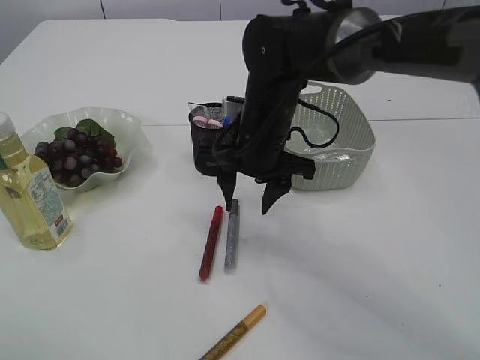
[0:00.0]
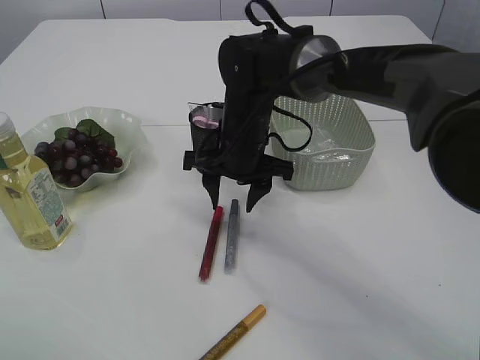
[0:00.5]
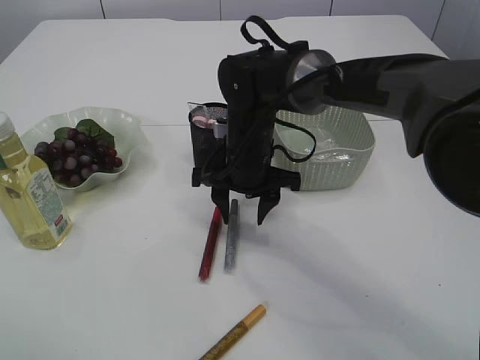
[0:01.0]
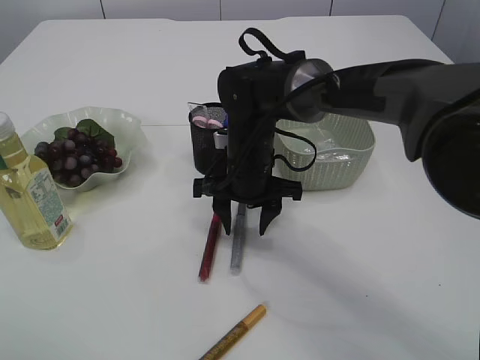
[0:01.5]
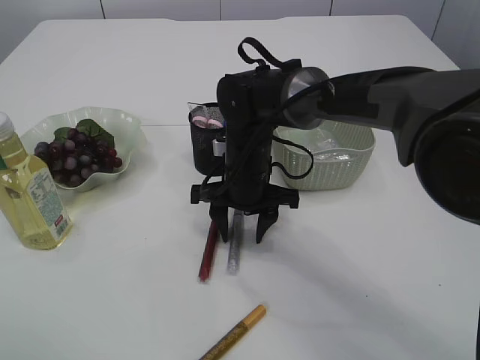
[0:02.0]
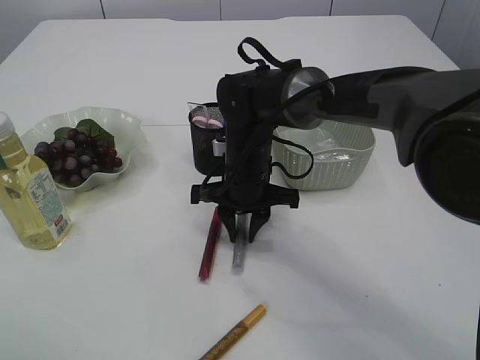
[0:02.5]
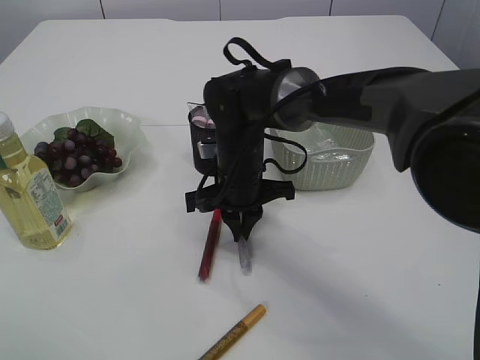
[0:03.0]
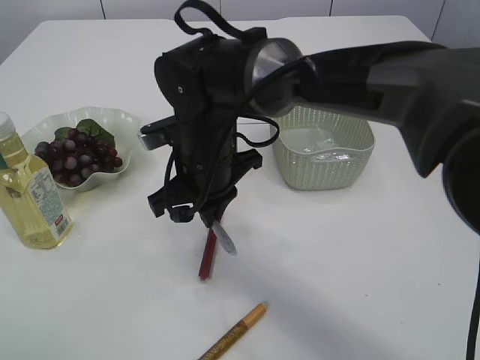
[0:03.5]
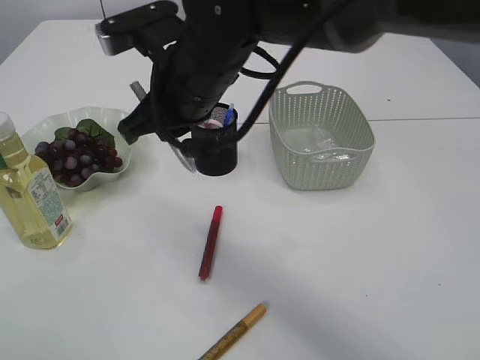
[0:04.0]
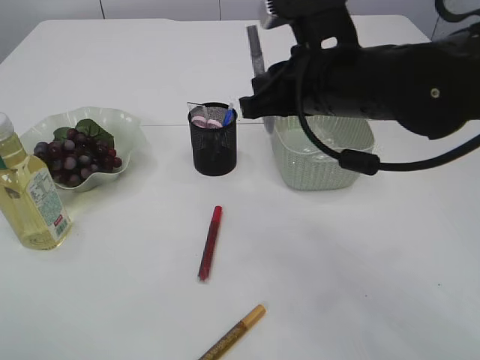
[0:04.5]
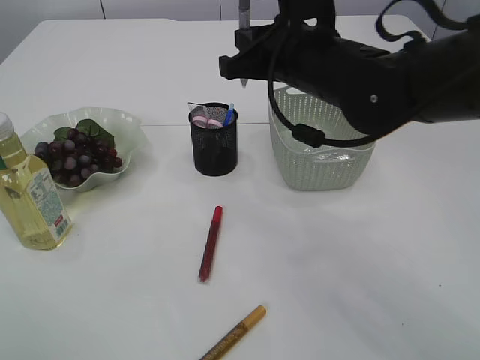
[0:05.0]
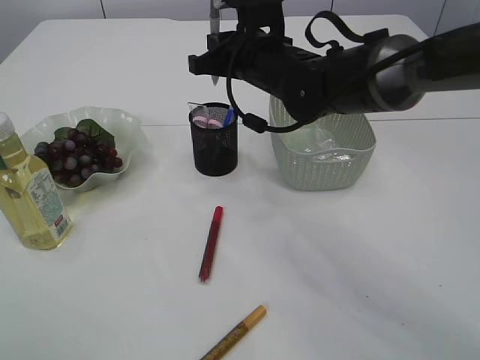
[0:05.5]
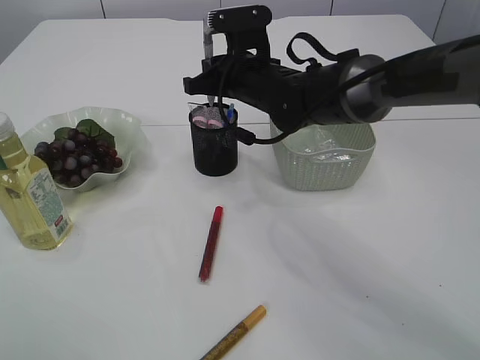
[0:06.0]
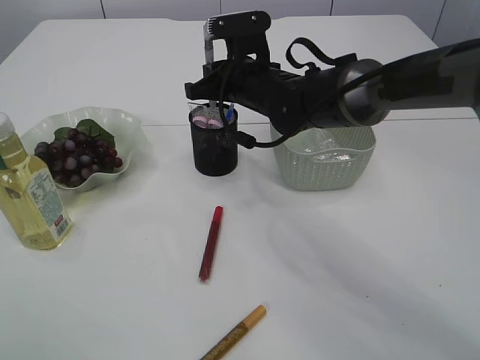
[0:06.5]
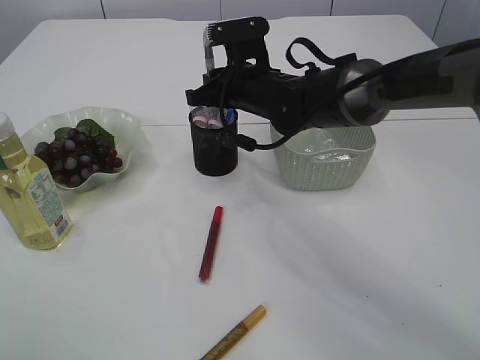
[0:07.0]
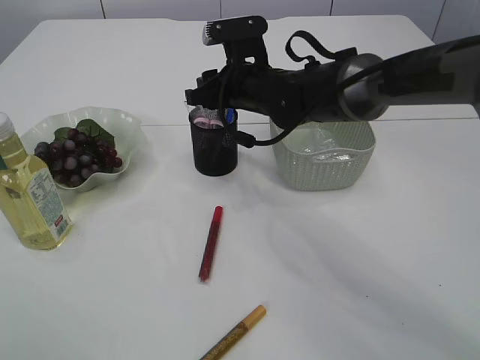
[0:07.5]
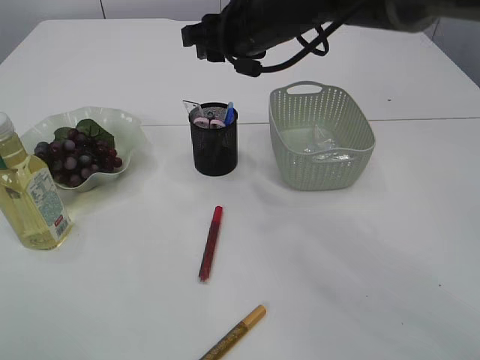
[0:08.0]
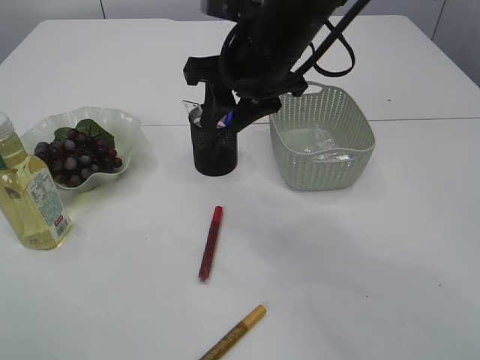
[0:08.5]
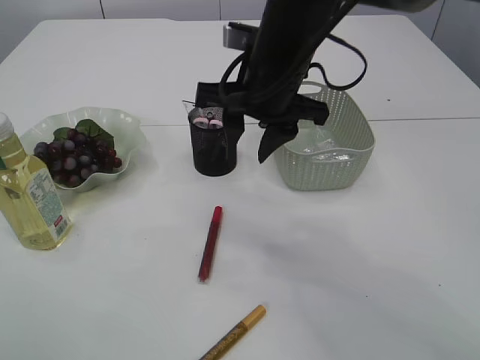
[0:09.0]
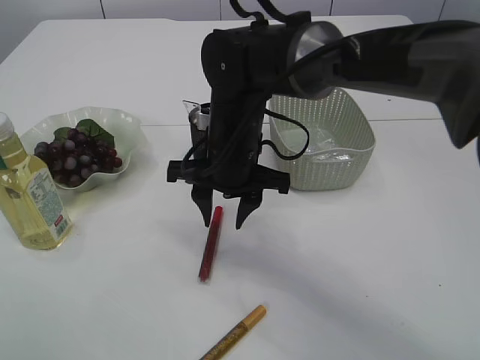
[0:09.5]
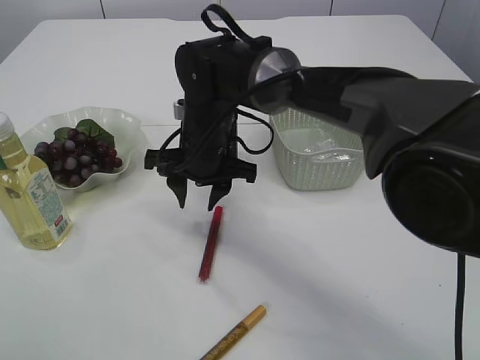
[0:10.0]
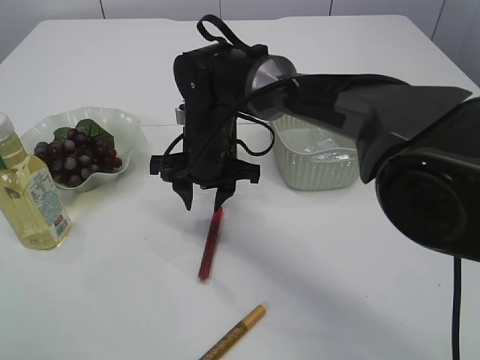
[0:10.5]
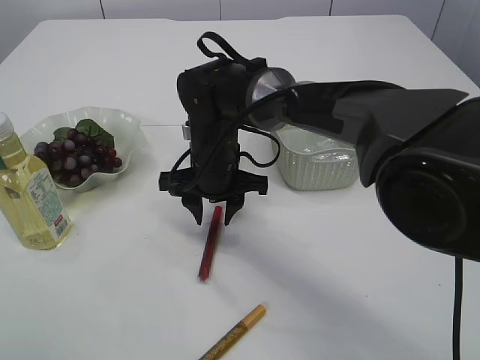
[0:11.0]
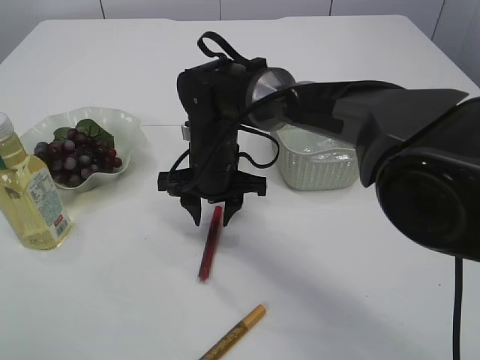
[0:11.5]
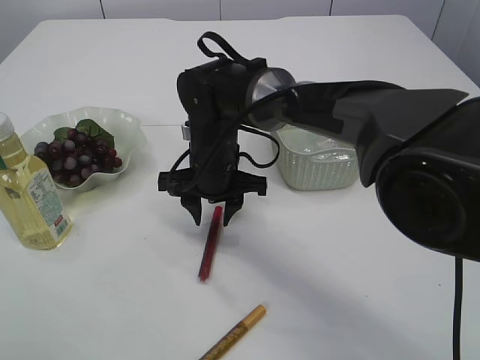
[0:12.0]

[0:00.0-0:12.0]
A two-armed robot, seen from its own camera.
Step, 0:00.0 to 0:03.5: pick up the silver glue.
Step, 0:04.0 to 0:08.0: place the silver glue into the pen holder.
0:00.0 to 0:02.0: The right gripper goes roughly 5 cm downward.
0:02.0 to 0:04.0: The right gripper shifts roughly 15 cm upward, and closes up.
0:04.0 to 0:06.0: The right gripper travels forward, downward and to the right by about 15 cm.
0:06.0 to 0:08.0: The right gripper heads upward, covering some 10 cm, and opens its fingers.
0:08.0 to 0:10.0: The right gripper heads downward and to the left, covering about 15 cm.
0:10.0 to 0:12.0: There are only small adjustments of the grippers.

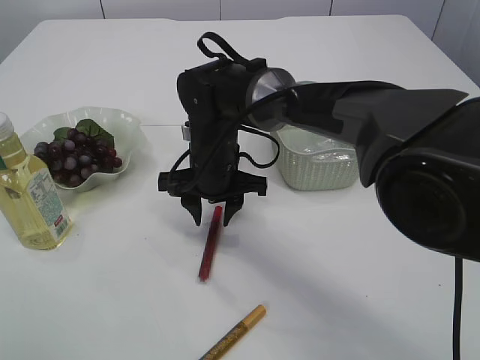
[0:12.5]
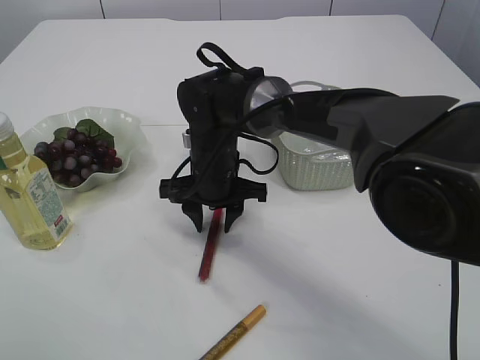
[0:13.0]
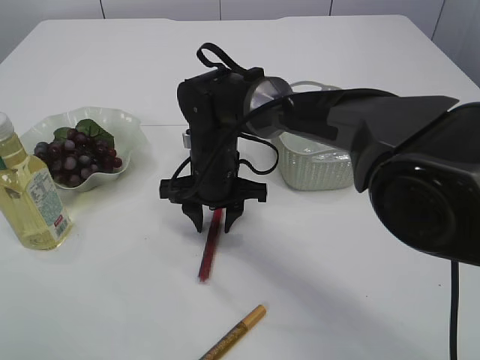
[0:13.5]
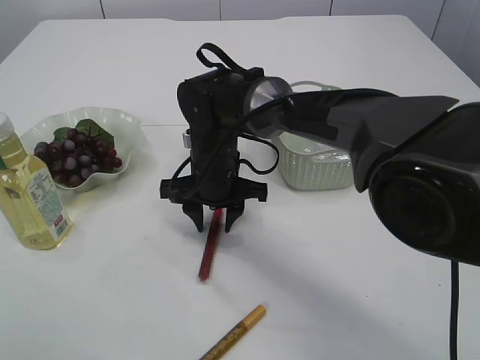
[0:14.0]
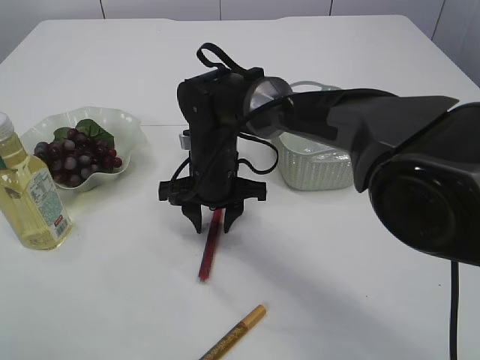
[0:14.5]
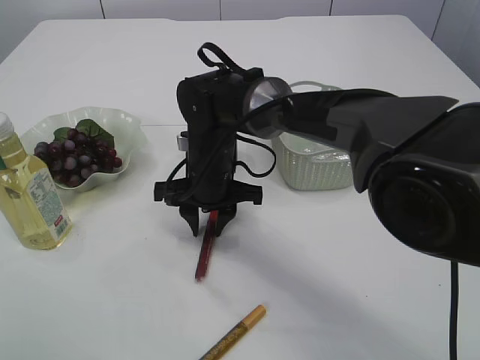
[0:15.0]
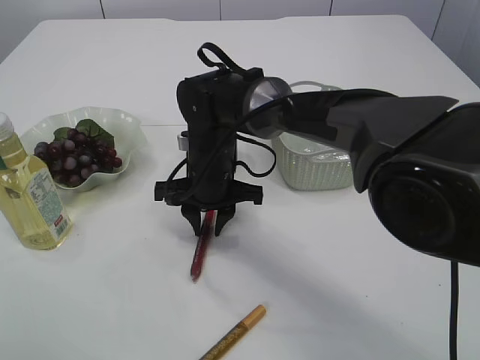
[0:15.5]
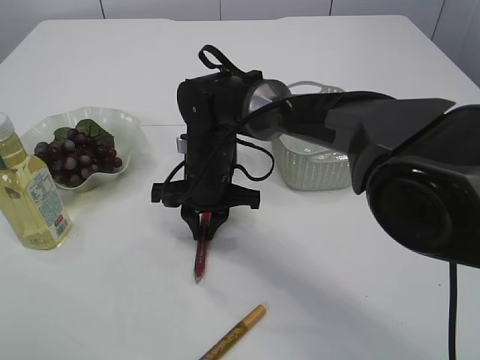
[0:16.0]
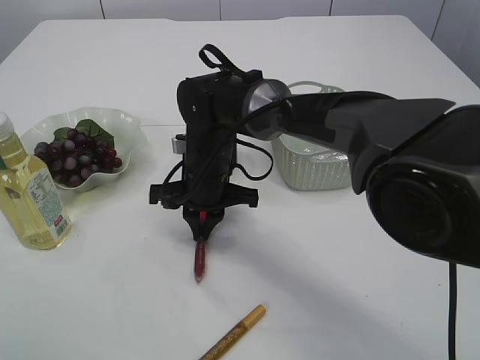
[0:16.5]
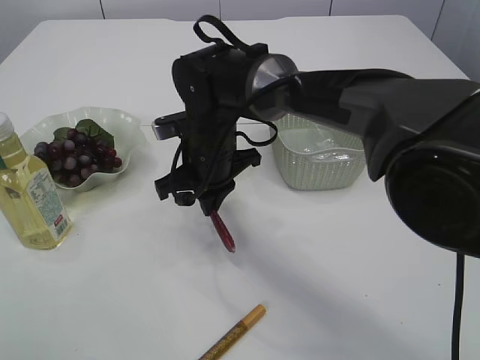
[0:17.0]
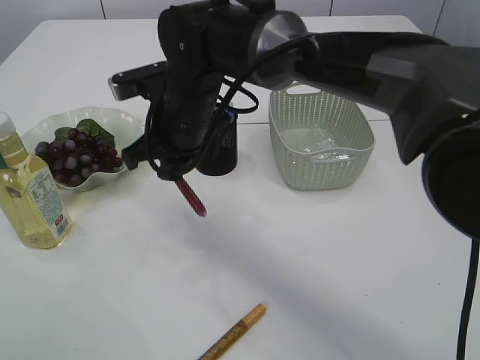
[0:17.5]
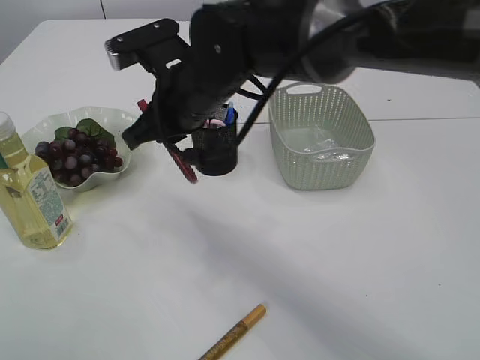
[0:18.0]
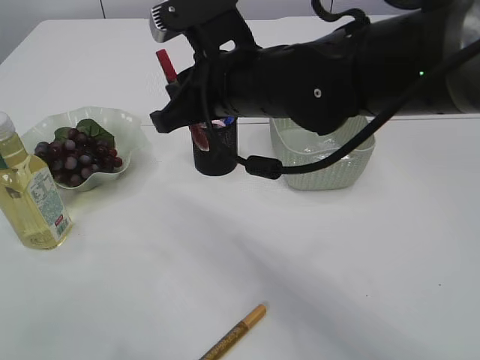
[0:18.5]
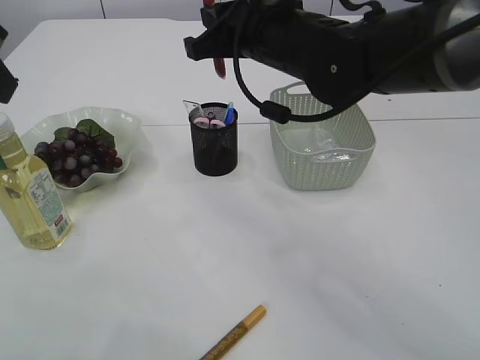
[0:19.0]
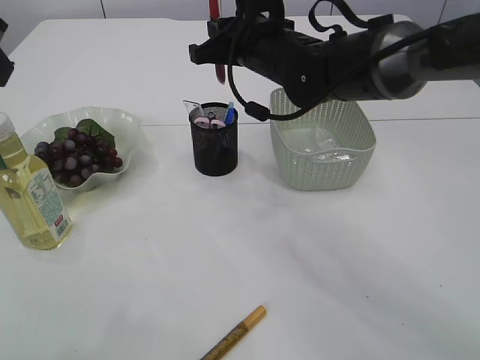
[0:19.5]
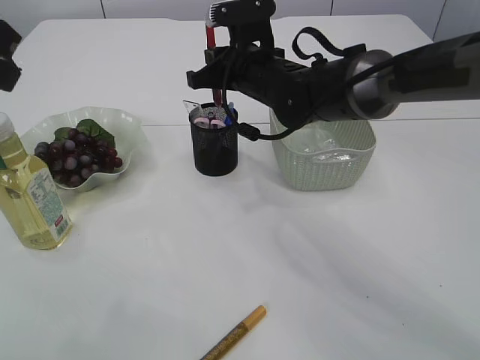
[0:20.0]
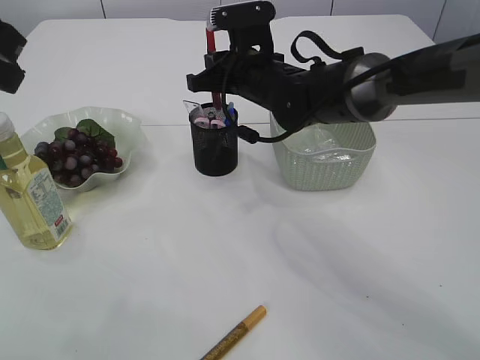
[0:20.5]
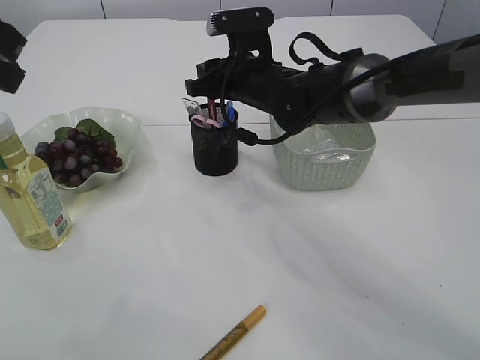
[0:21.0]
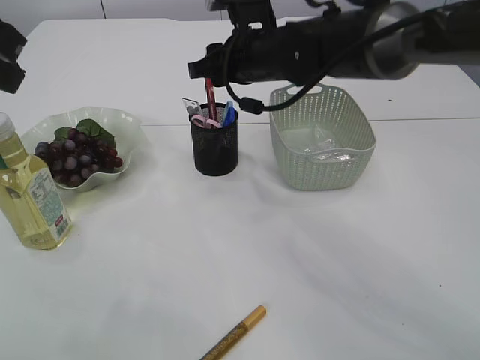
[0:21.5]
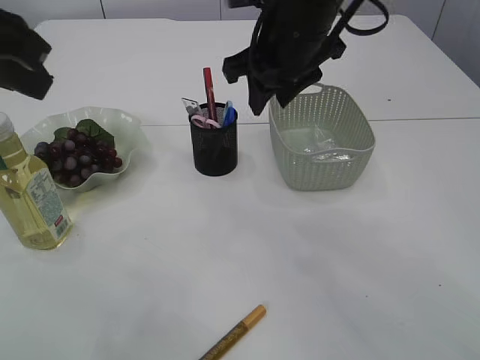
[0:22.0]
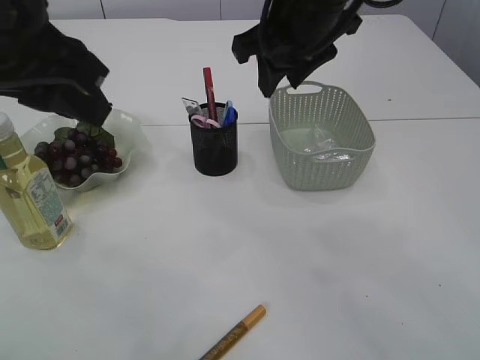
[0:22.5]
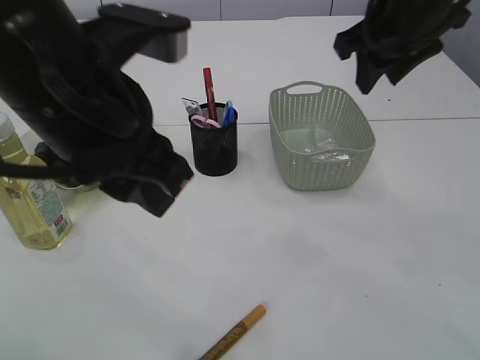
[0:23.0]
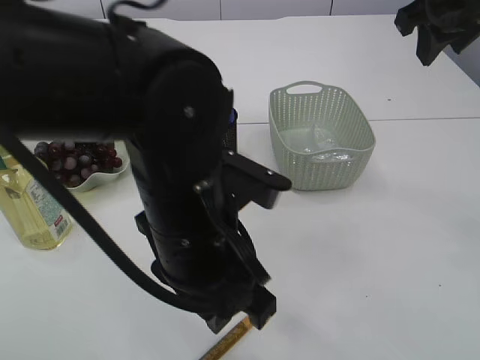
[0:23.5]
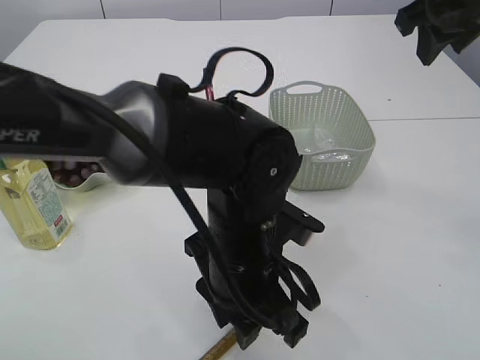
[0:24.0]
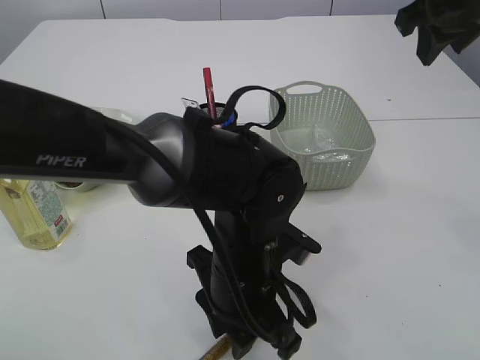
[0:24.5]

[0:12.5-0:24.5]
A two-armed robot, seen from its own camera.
Step, 0:12.5 to 0:17.0: pick up the red glue.
Step, 0:17.5 to 0:22.0: place the red glue into the pen holder.
0:12.5 to 0:14.5: Both grippers stay put.
0:14.5 to 0:16.5: The right gripper closes up.
0:16.5 to 0:18.5: The right gripper goes some 15 cm upward and backward.
0:18.5 to 0:20.5: The left gripper changes place by roughly 5 cm, while the right gripper is displaced forward and downward by some 15 cm.
0:20.5 to 0:22.5: The left gripper goes approximately 5 cm to the right; the right gripper moves upward and backward, roughly 15 cm, and opens.
0:22.5 to 0:24.5: The right gripper shifts approximately 15 cm to the right; the left gripper moves downward and to the right, approximately 30 cm.

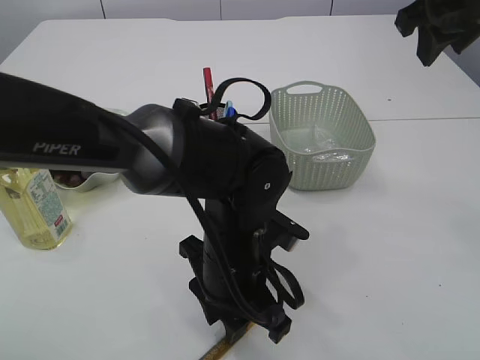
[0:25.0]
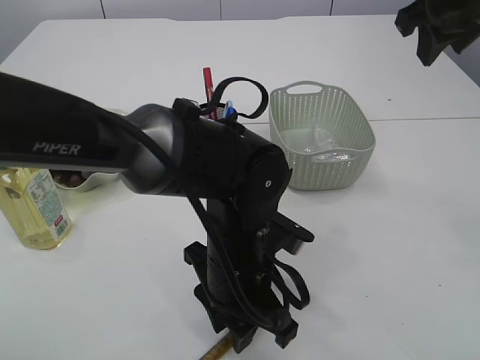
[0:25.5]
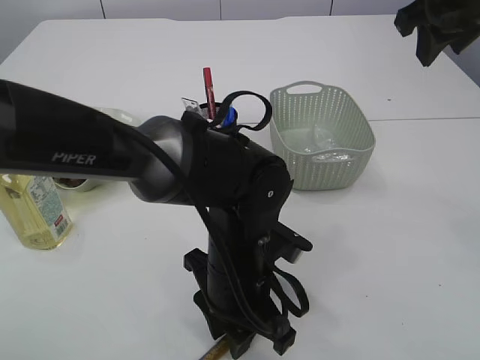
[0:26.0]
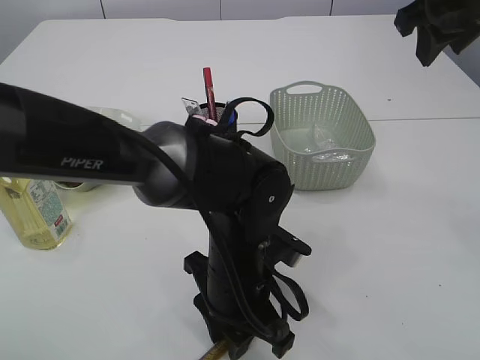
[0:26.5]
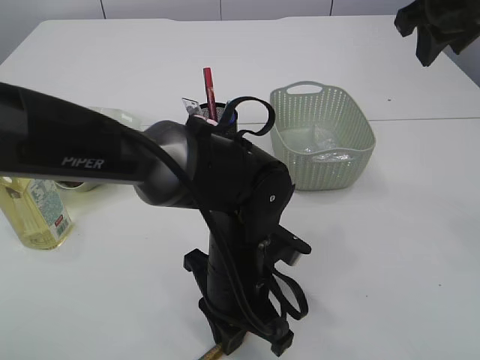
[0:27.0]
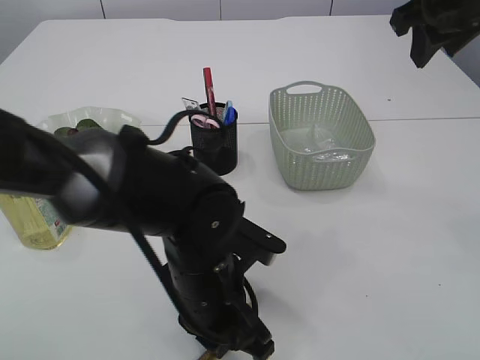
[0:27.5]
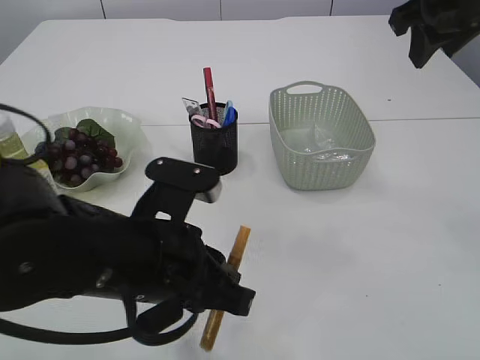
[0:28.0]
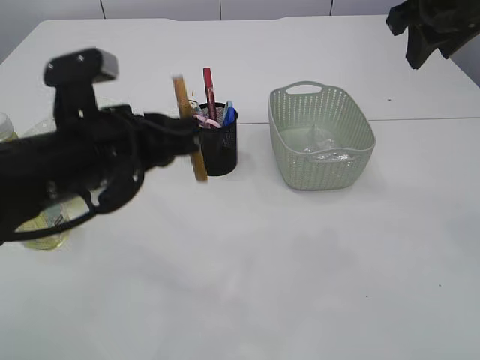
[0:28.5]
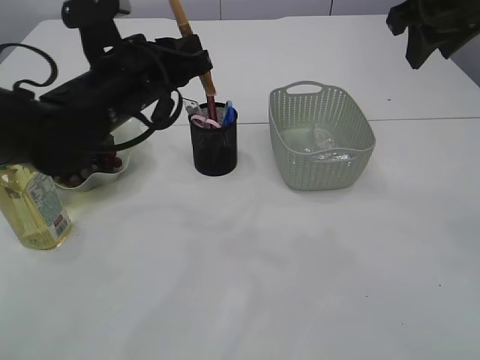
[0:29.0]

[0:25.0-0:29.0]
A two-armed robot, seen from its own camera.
Step, 0:25.0 to 0:28.0: pick up the yellow glue.
0:25.0 to 0:27.0: The left gripper closes.
0:27.0 to 0:29.0: The left gripper goes approximately 20 cm upward, to the left and forward.
